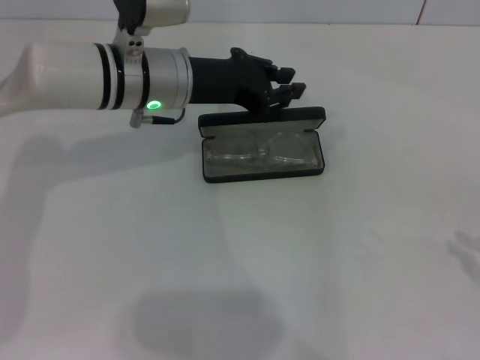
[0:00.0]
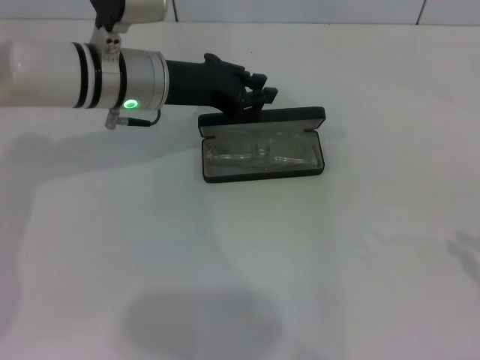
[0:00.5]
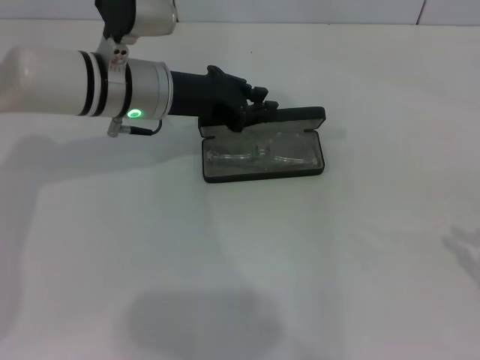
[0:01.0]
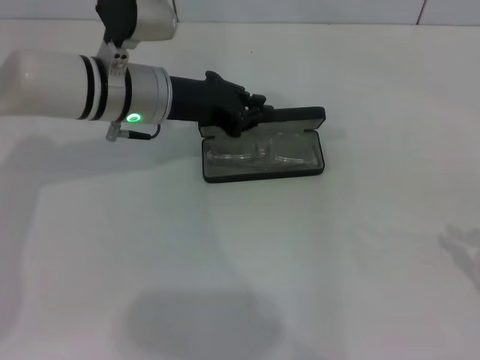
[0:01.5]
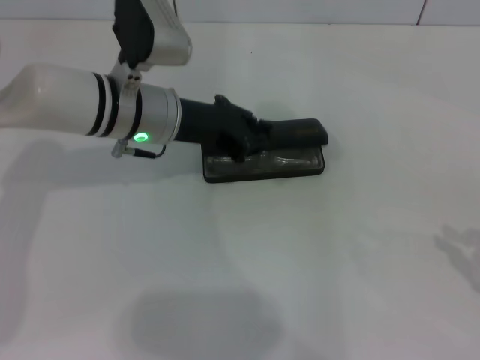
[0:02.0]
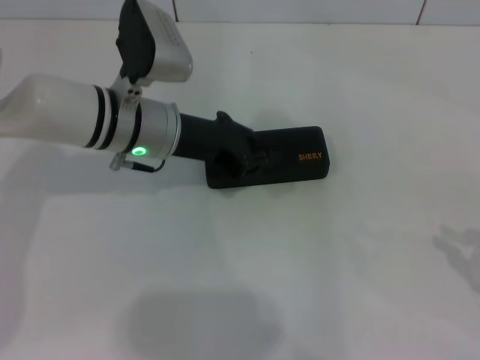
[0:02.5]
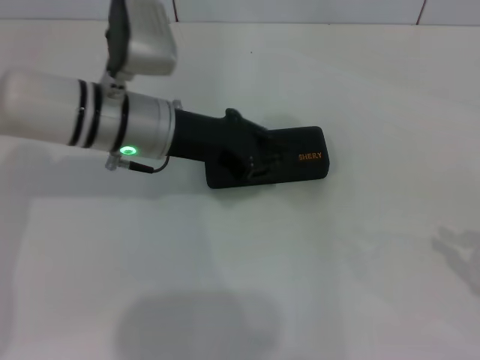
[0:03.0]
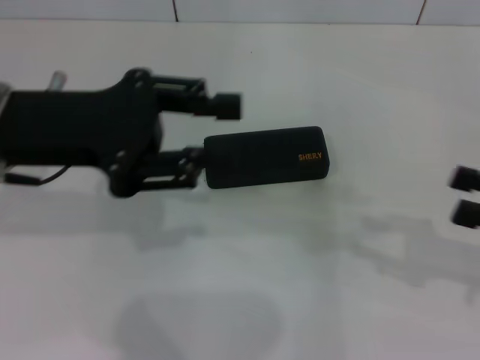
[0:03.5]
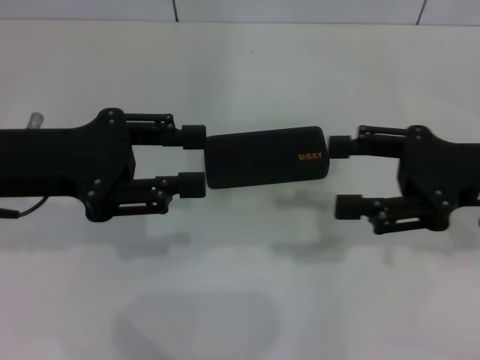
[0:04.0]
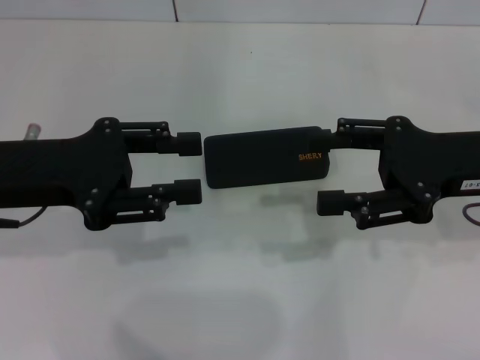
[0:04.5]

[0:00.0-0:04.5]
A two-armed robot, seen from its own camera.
Step, 0:00.0 to 0:02.0: Close the glasses case with your left hand.
0:00.0 to 0:02.0: The grippers move only a little.
0:02.0 to 0:04.5: The left gripper moves to the left, backward and upward, approximately 15 cm, and opens up. The right gripper travels to the left and forward by roughly 20 cm, and opens its fingers.
